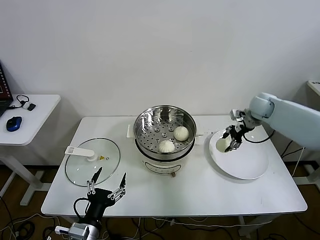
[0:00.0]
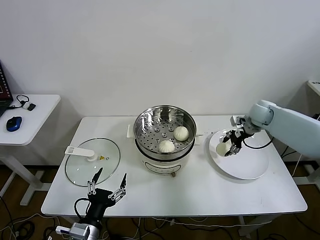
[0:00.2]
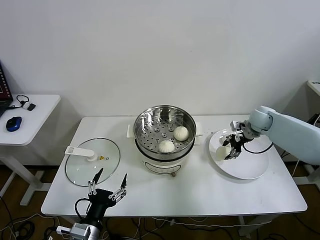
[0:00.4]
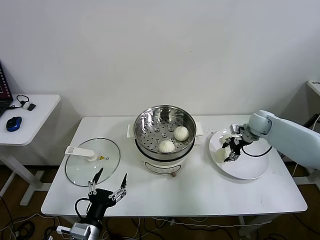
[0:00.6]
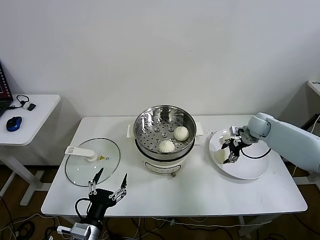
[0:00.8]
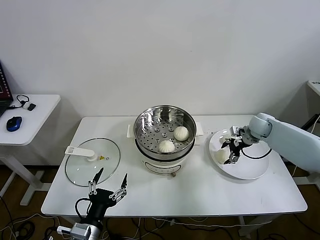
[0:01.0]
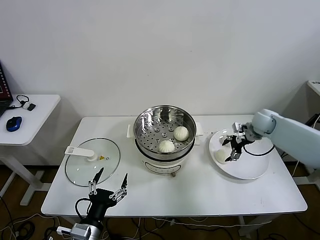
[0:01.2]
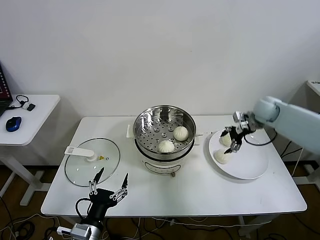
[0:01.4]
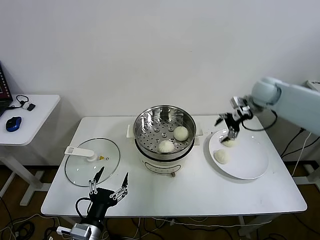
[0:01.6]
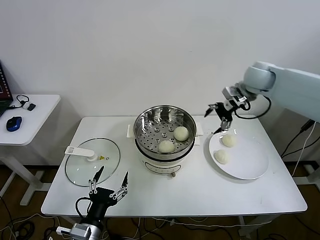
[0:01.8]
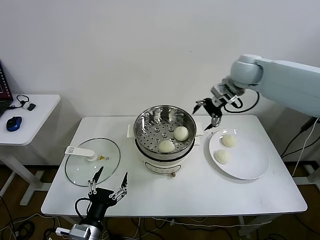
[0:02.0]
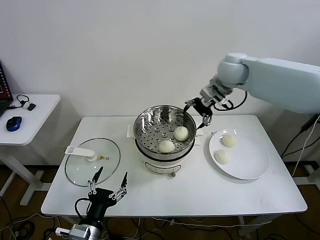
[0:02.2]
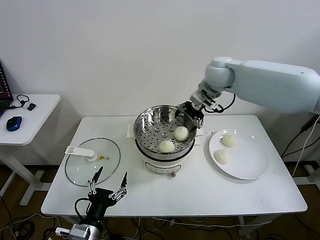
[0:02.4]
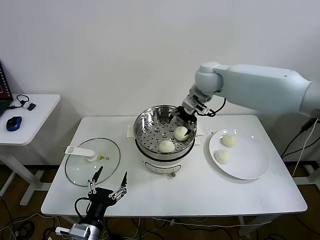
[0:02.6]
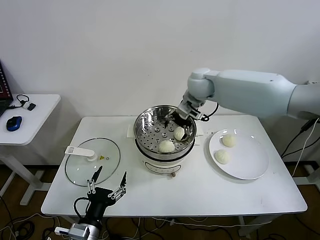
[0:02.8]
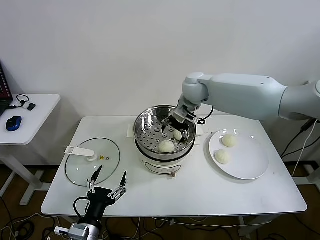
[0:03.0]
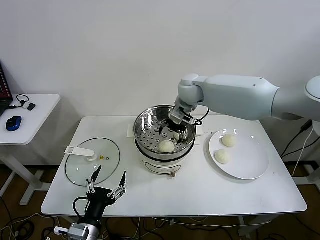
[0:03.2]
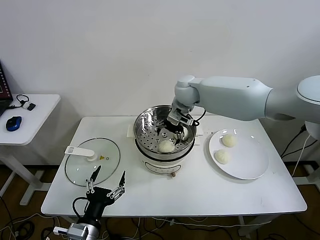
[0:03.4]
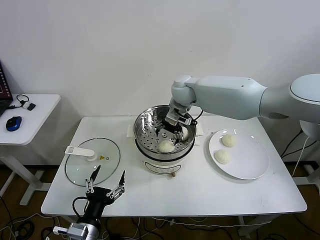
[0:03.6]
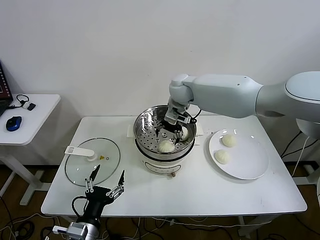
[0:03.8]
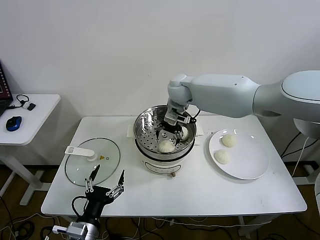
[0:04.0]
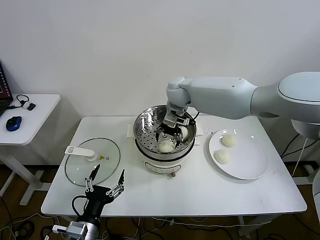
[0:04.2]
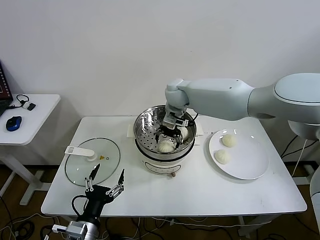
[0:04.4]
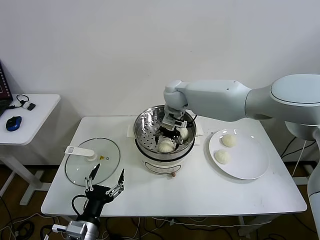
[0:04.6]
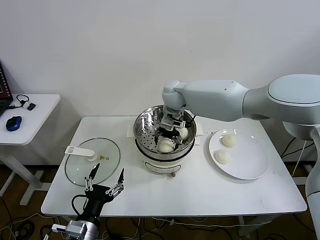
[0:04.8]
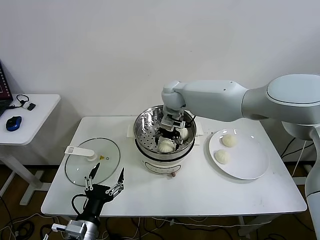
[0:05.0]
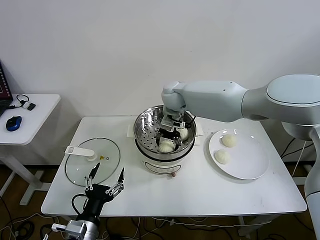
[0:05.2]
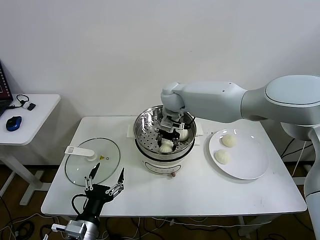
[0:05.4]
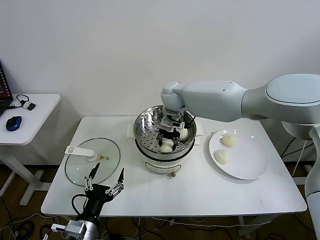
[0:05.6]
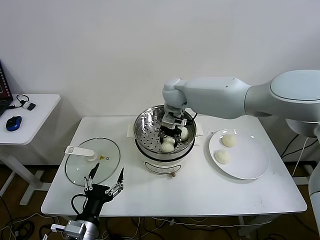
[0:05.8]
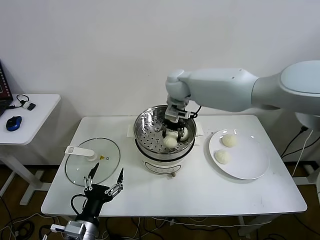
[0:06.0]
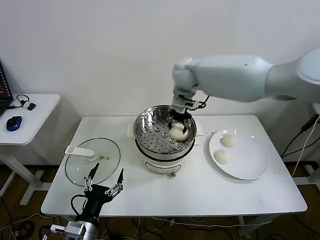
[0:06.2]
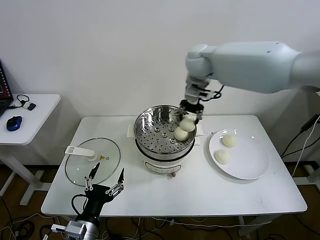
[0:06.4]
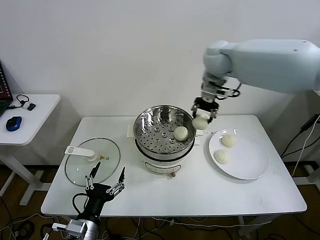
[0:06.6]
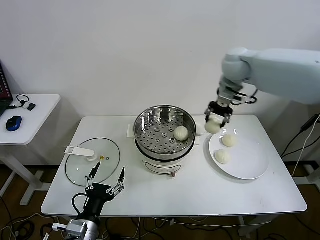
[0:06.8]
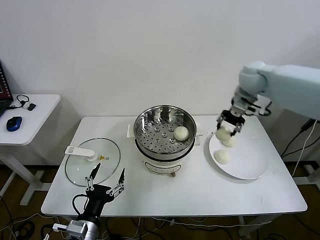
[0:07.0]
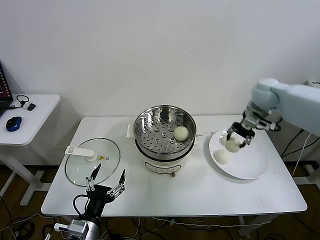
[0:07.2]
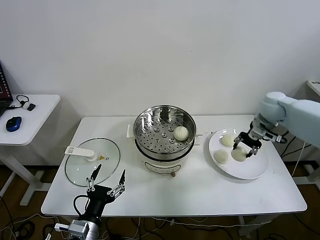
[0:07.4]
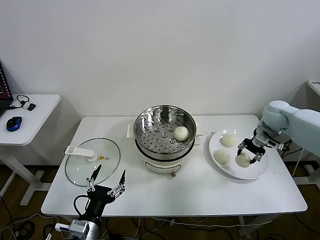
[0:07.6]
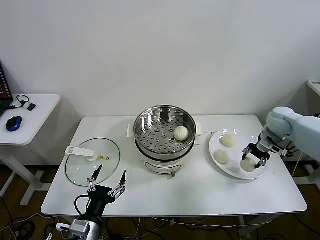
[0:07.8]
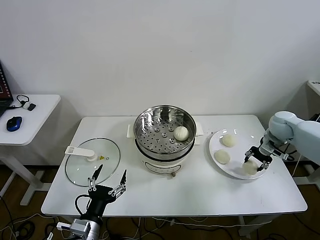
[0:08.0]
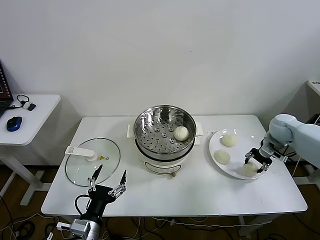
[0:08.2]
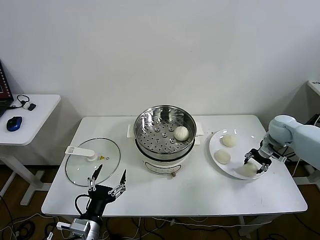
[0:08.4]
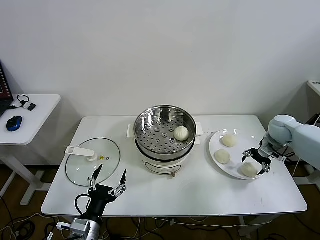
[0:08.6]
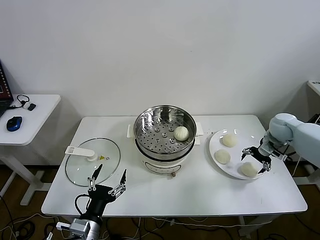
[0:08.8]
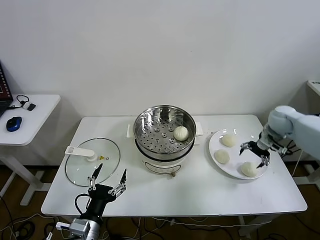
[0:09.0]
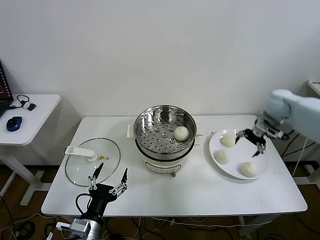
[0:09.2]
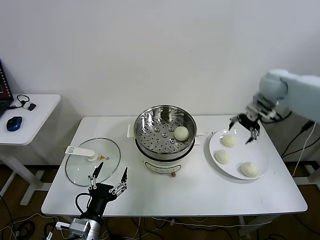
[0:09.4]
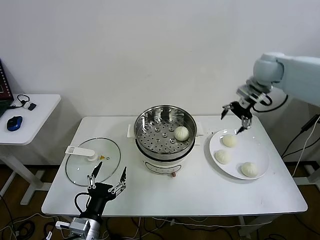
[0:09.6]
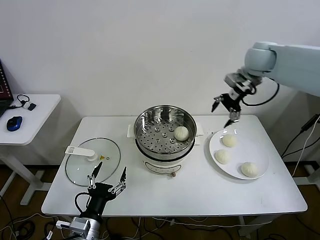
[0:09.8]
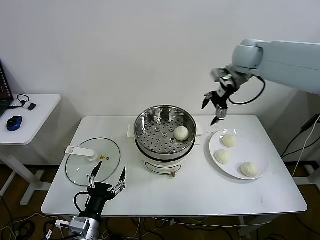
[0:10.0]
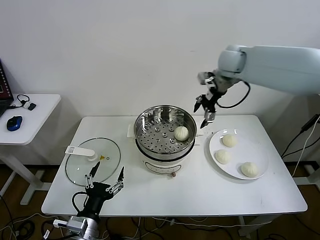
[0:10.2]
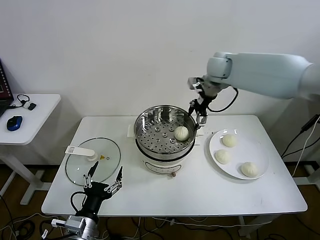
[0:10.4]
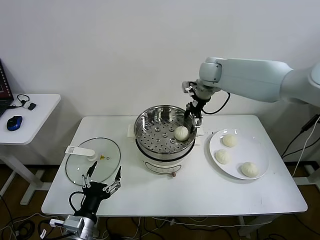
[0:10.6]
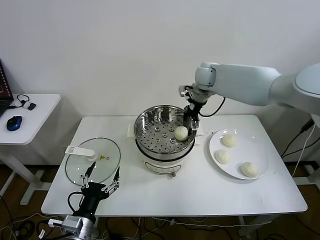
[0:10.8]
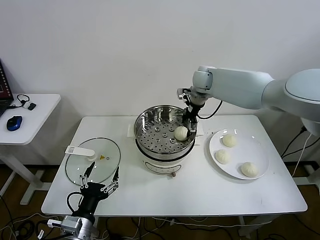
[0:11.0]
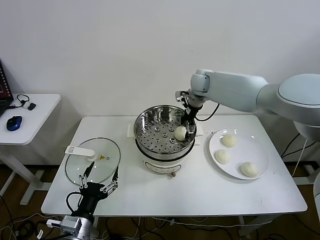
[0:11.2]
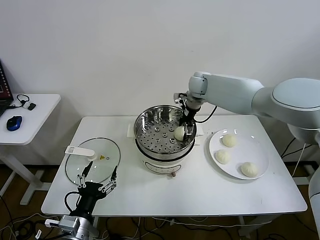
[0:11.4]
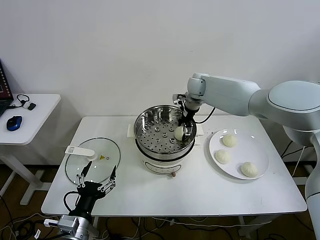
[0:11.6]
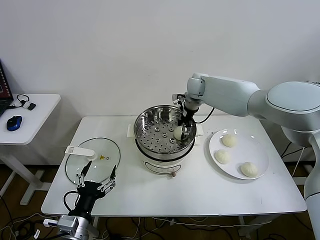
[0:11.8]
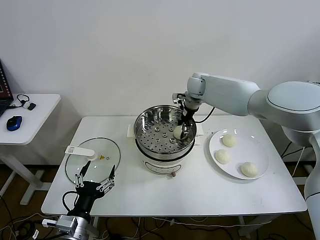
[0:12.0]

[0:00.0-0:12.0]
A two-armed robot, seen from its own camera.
Task of the whole recording: take steamed baozi put them in steamer then cover it.
Step, 0:01.0 to 0:05.4: Grasp the baozi with right gripper.
Step, 0:05.6 to 0:08.4: Place the baozi on the plate with right gripper.
Step, 0:08.8 to 0:11.8: Grasp the baozi with right gripper.
0:00.0 to 0:01.6: The right gripper shifts roughly 10 cm upward, and opens its fingers.
0:01.6 to 0:03.0: The right gripper heads to the left, covering about 25 cm.
0:03.0 to 0:04.4: The right gripper shifts roughly 5 cm to the left.
0:04.4 to 0:06.0: The right gripper closes.
0:06.0 to 0:07.6: The right gripper moves to the right, approximately 35 cm.
0:07.6 to 0:09.0: The right gripper opens.
0:09.0 to 0:10.4: The right gripper travels to the left and upward by some 30 cm.
0:10.4 to 0:12.0: The right gripper travels downward and to the left by some 10 cm, and closes up.

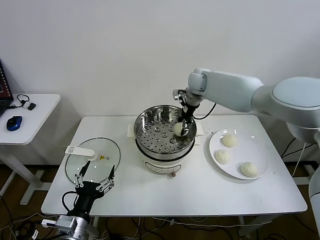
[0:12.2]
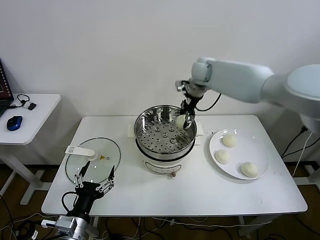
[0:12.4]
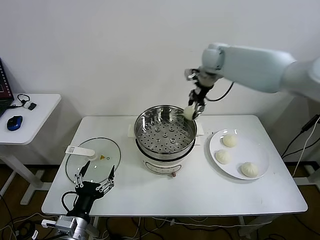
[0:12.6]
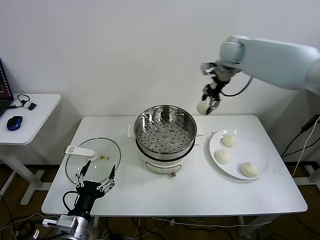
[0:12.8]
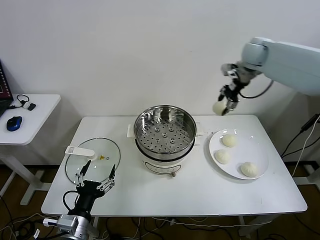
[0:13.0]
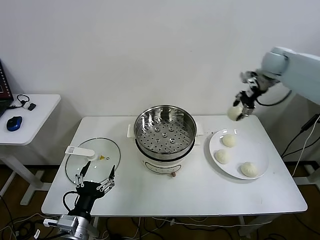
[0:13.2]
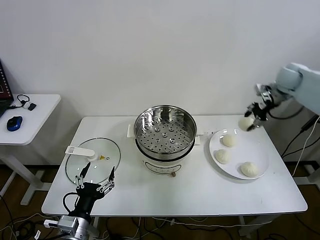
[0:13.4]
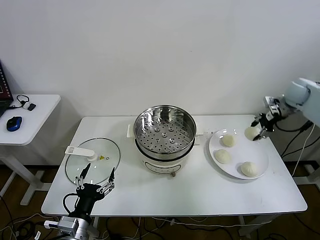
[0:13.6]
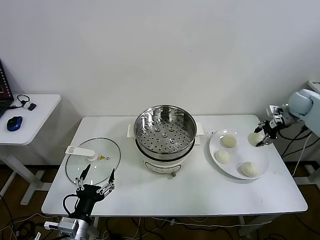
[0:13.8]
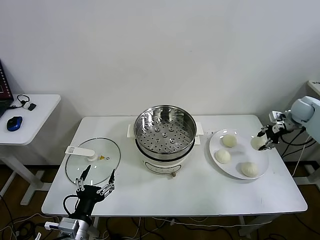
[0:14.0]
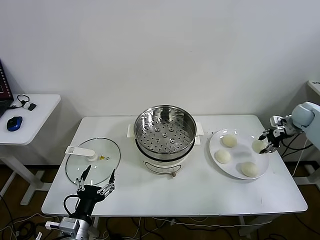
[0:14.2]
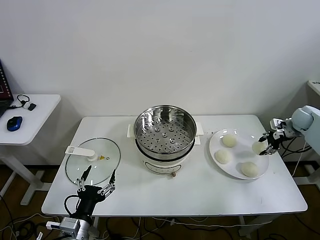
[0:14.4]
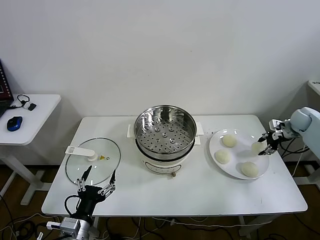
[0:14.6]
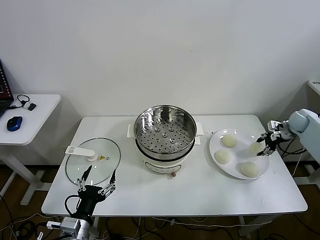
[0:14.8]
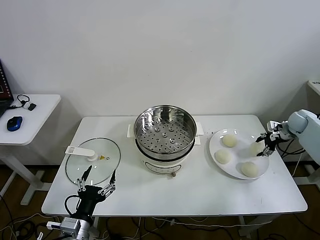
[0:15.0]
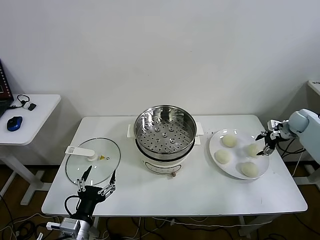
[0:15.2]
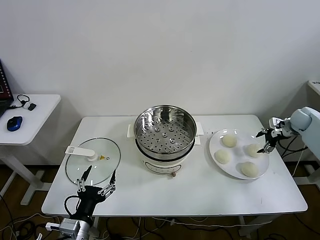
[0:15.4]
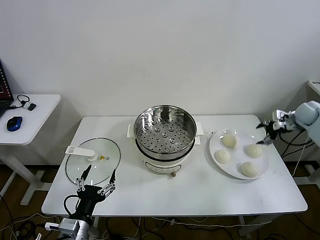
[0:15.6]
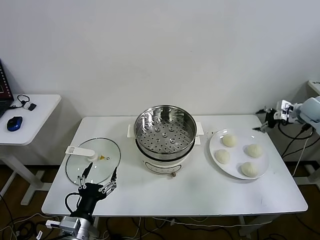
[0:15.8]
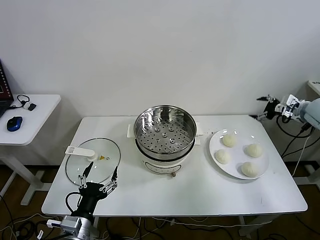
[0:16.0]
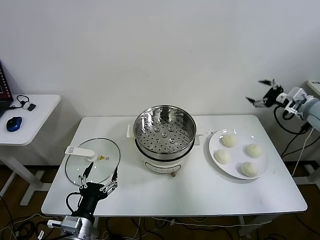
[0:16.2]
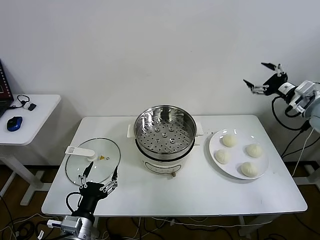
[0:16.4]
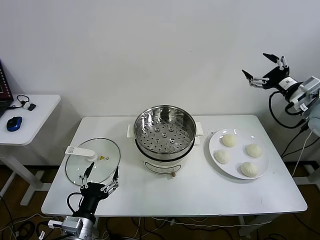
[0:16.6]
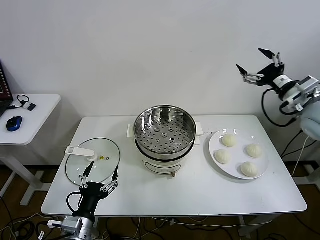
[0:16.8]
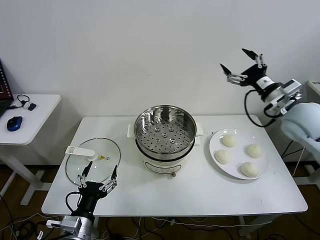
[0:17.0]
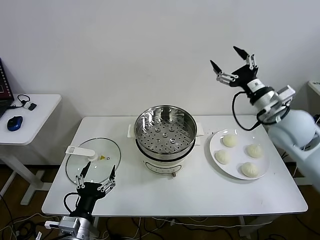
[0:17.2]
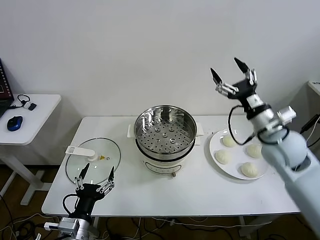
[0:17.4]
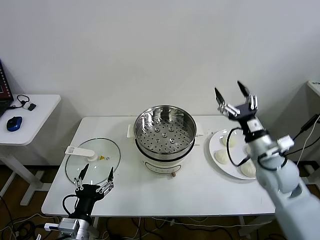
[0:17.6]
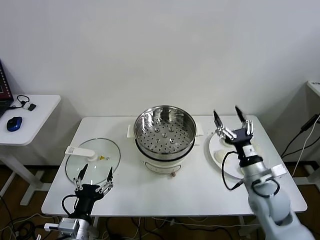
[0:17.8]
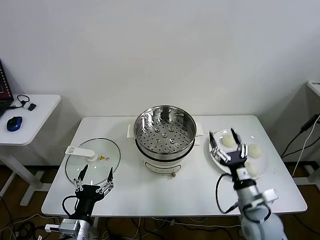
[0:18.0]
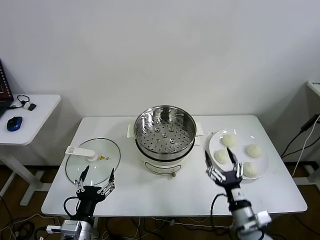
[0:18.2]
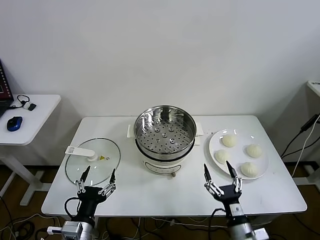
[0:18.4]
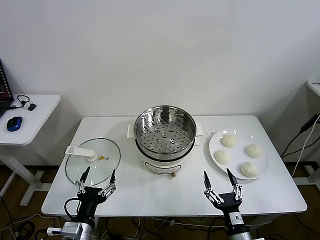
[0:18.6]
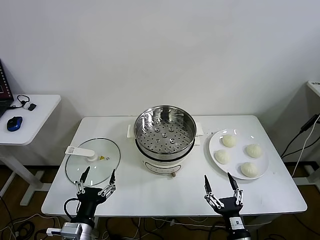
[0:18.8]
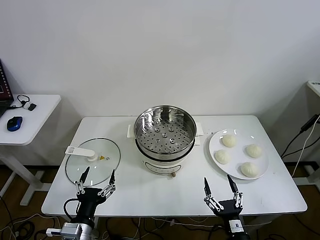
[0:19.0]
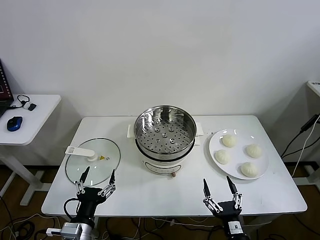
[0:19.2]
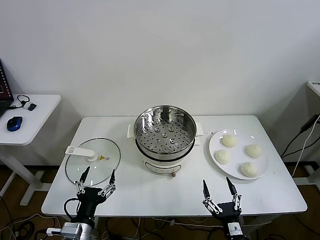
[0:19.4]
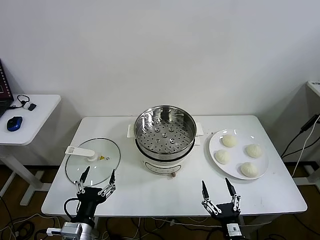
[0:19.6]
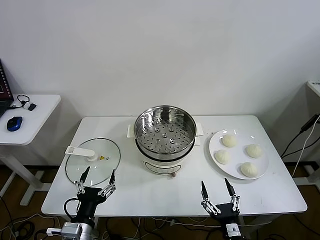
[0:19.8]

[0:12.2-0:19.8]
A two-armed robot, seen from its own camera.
Task of the whole recording: take steamed baozi put them in steamer then cover it.
Step, 0:12.2 to 0:15.0: Place the baozi on the plate with right gripper.
0:12.2 to 0:13.8: The right gripper goes some 35 cm to the right.
0:13.8 to 0:15.2: The right gripper travels downward by about 10 cm, and opens.
0:15.2 to 0:16.8: The right gripper shifts roughly 30 cm upward, backward and to the left.
0:16.8 to 0:18.2: The right gripper goes roughly 40 cm downward, backward and to the left.
0:18.2 to 0:19.8: The right gripper heads backward, covering some 10 cm.
